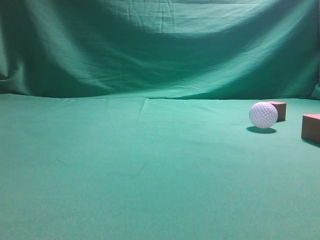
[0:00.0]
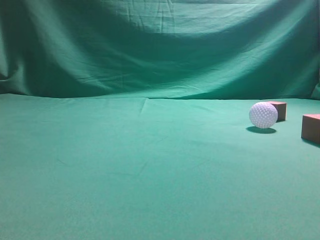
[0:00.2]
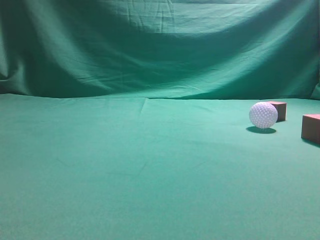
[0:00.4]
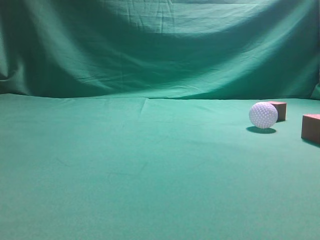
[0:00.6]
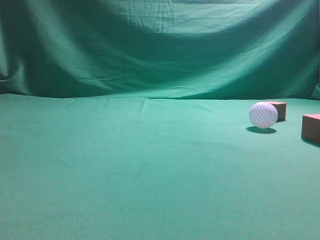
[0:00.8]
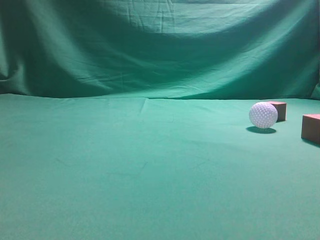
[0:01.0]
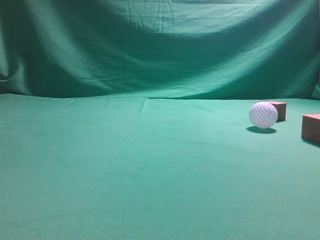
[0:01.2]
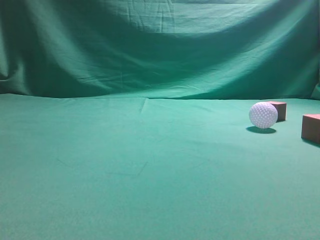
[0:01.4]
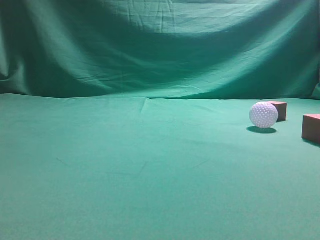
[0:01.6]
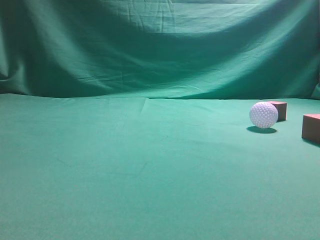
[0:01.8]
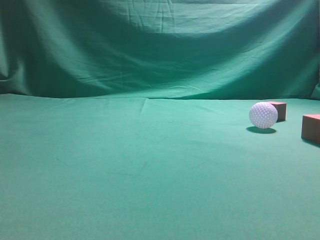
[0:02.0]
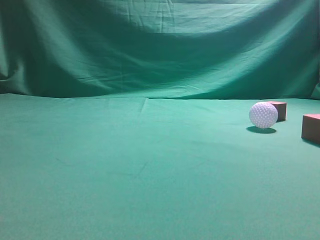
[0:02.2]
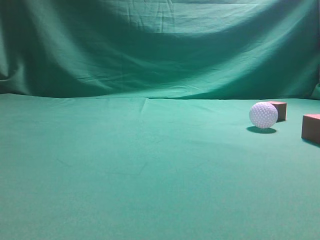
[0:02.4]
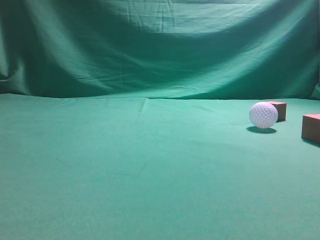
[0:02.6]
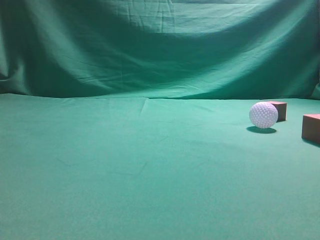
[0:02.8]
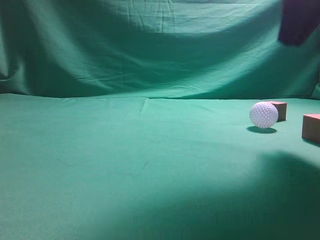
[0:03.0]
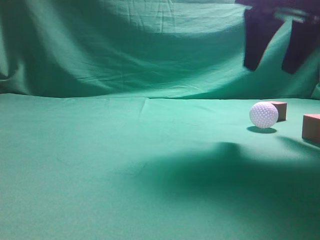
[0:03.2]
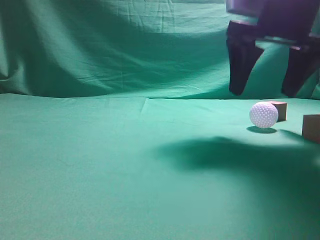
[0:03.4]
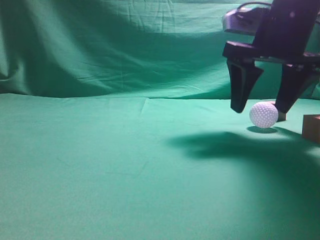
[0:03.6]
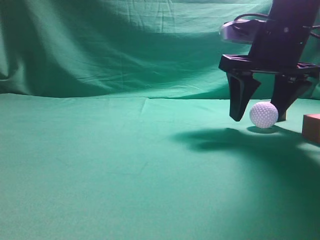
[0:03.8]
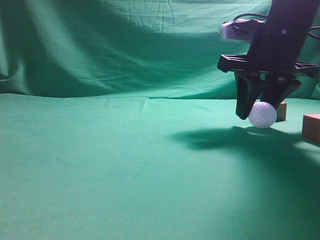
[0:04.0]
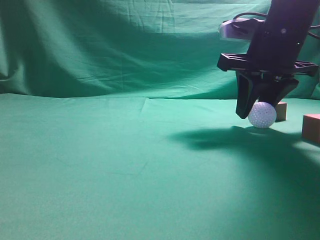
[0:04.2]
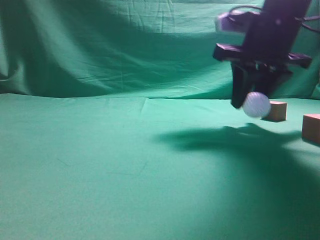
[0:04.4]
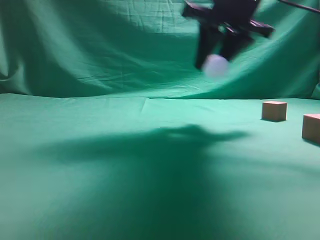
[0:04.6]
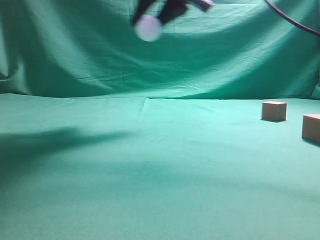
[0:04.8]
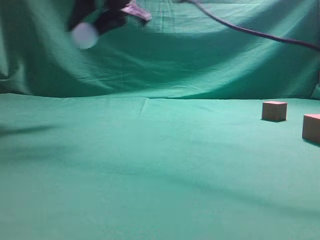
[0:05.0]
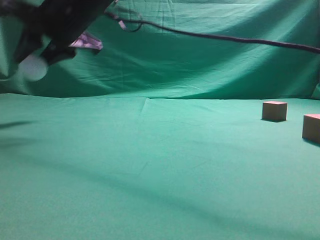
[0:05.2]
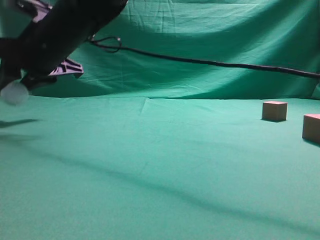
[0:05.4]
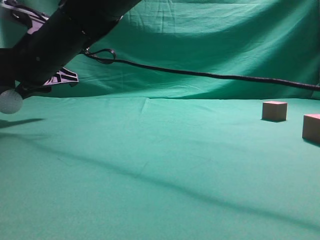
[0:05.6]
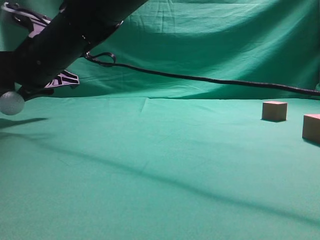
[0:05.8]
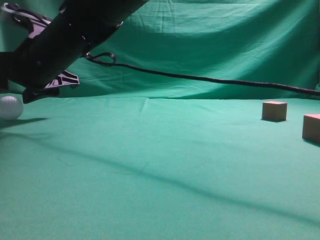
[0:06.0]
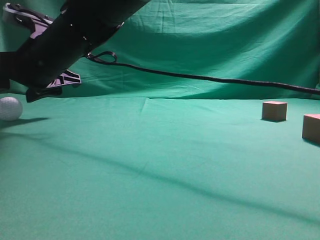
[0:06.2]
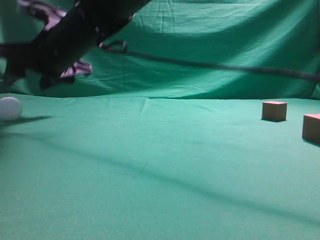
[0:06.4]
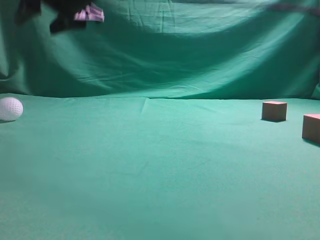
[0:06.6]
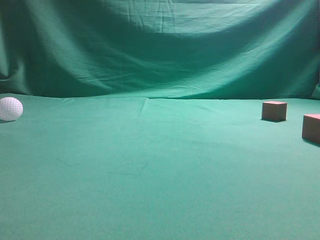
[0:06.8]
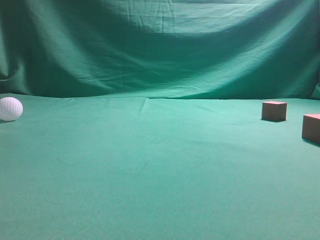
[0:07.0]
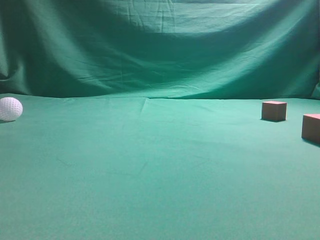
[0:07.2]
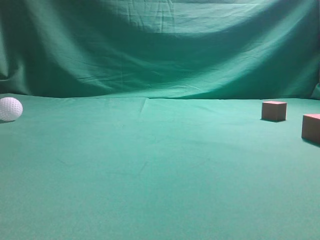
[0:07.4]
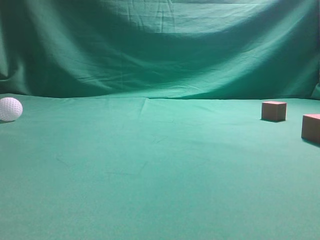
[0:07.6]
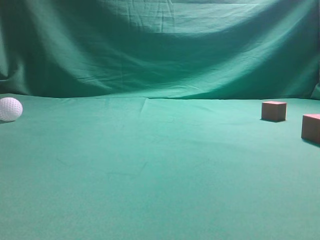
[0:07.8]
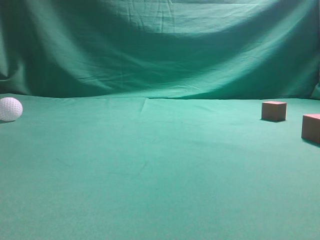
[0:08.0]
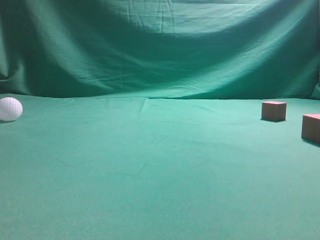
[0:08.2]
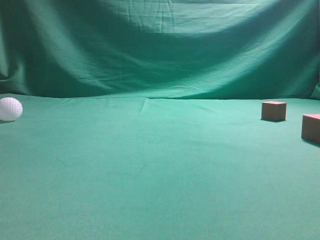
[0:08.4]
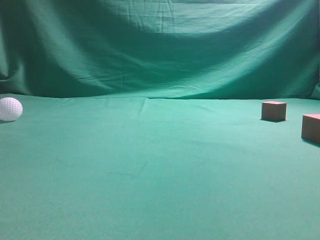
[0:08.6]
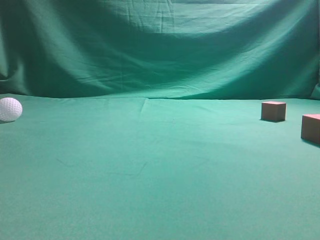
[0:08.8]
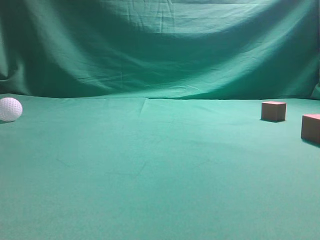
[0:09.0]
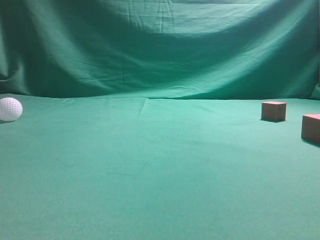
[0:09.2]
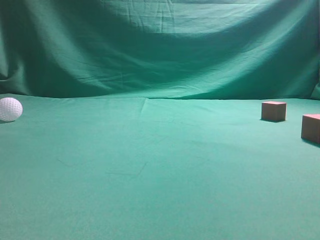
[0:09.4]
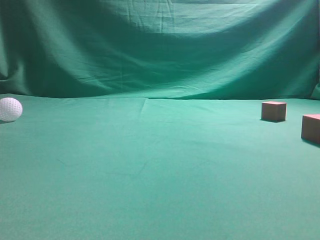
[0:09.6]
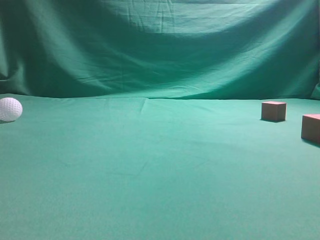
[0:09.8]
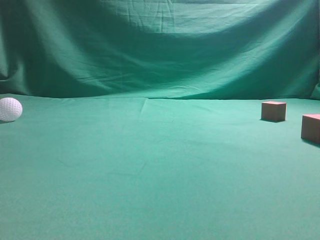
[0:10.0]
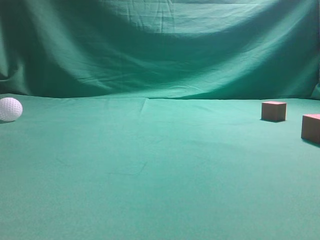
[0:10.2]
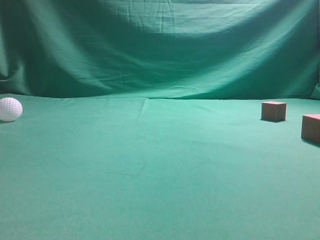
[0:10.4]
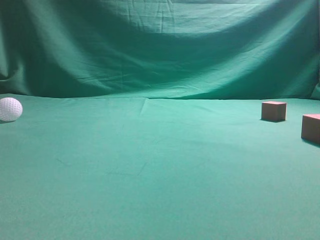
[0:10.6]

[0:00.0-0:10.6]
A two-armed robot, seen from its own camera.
Step, 0:00.0 to 0:04.4: Grasp the spherical object on the right side.
0:01.6 to 0:03.0: The right gripper is displaced forward and to the left by approximately 25 cm.
0:03.0 to 0:04.6: The right gripper travels forward and to the left by some 15 cm, moves roughly 10 cm downward and comes back, and opens, then closes again.
0:04.6 to 0:06.0: The right gripper moves to the left, about 25 cm.
0:06.0 to 0:07.6: The right gripper is displaced upward and to the right by approximately 40 cm, and closes up.
